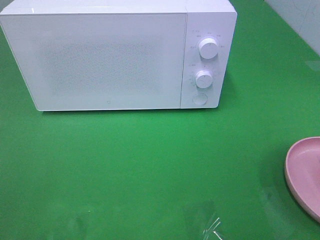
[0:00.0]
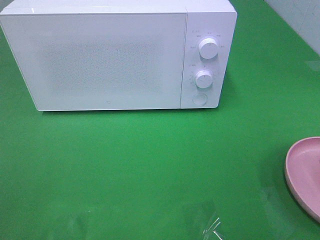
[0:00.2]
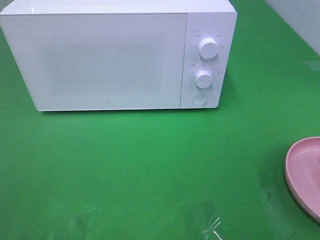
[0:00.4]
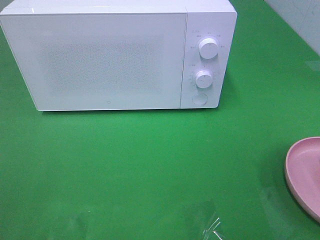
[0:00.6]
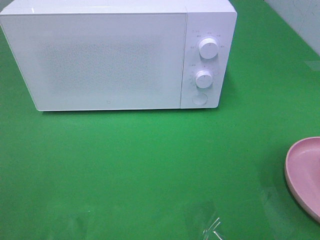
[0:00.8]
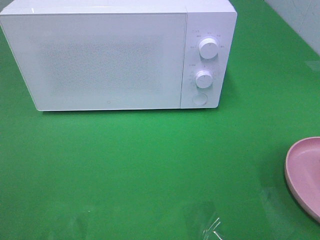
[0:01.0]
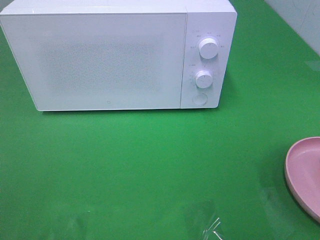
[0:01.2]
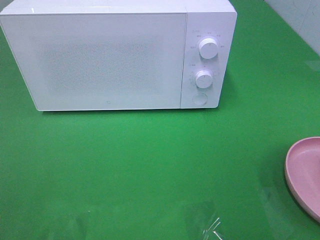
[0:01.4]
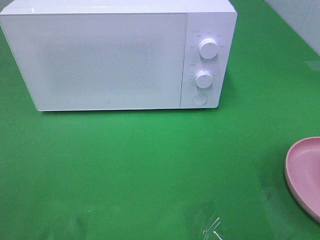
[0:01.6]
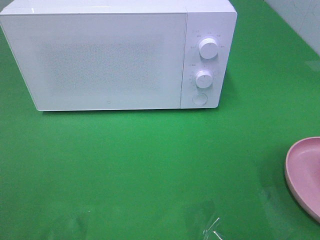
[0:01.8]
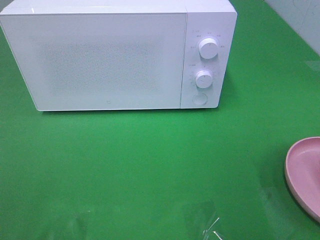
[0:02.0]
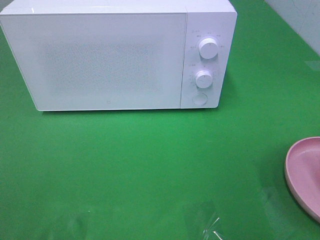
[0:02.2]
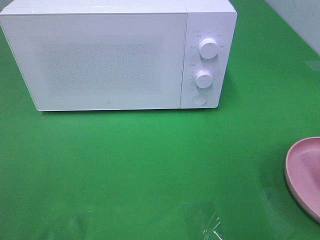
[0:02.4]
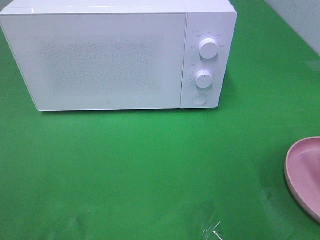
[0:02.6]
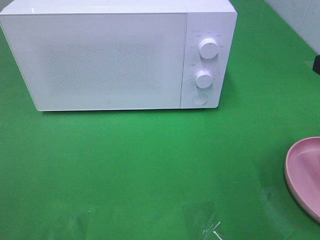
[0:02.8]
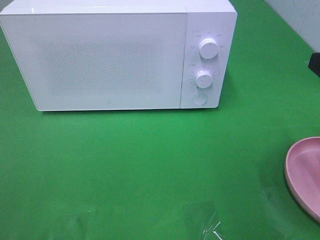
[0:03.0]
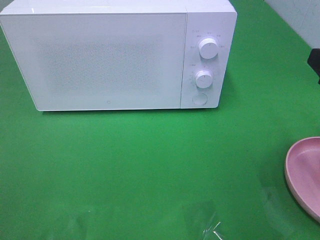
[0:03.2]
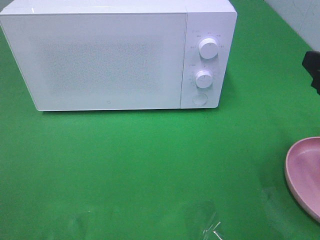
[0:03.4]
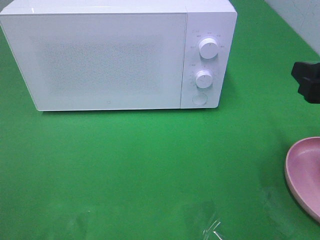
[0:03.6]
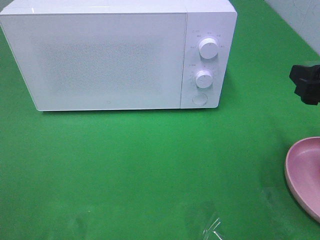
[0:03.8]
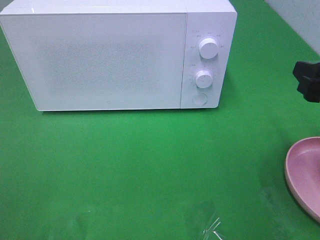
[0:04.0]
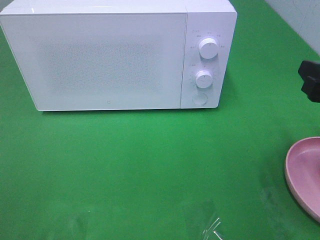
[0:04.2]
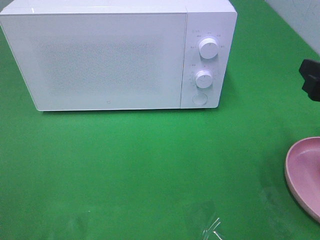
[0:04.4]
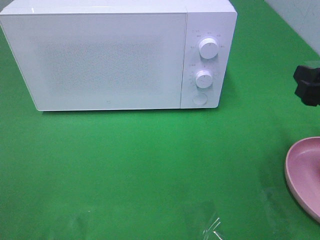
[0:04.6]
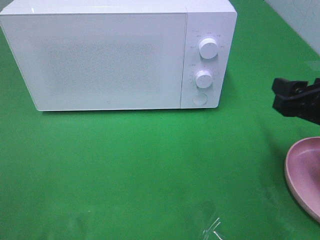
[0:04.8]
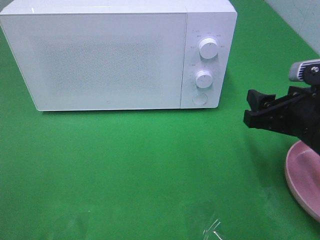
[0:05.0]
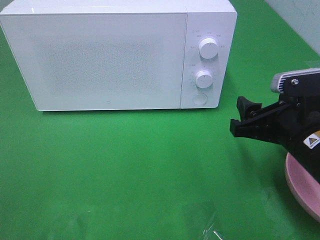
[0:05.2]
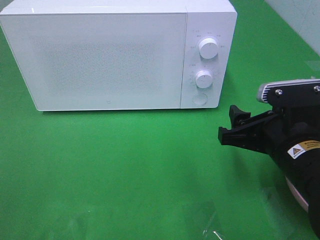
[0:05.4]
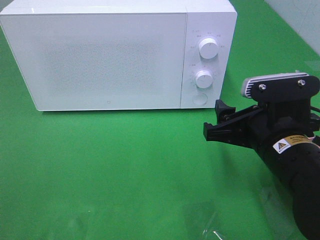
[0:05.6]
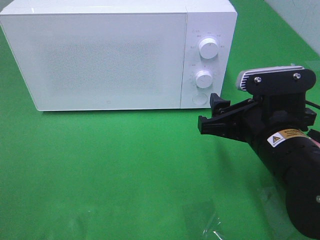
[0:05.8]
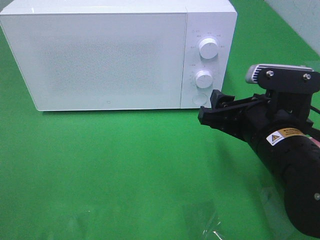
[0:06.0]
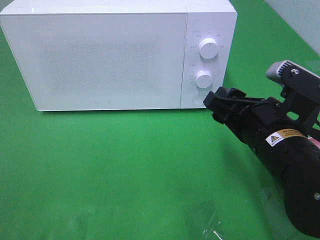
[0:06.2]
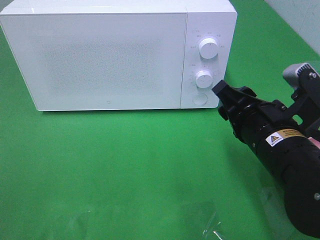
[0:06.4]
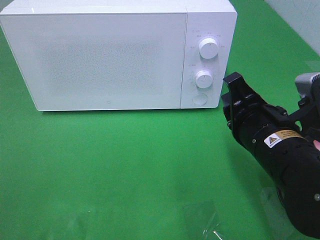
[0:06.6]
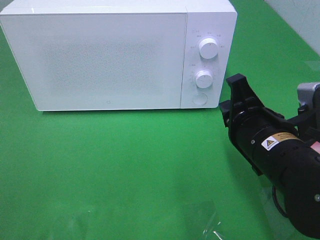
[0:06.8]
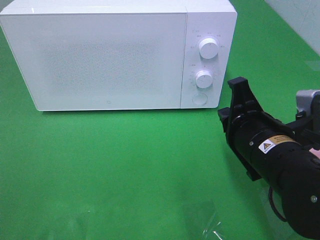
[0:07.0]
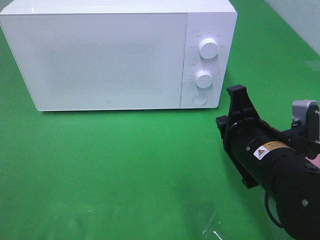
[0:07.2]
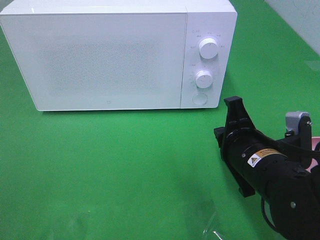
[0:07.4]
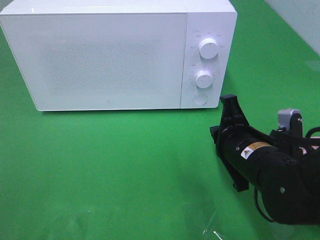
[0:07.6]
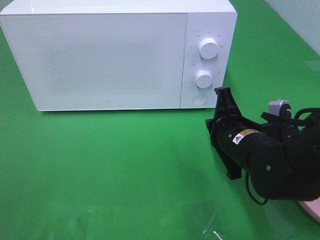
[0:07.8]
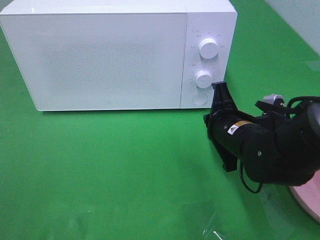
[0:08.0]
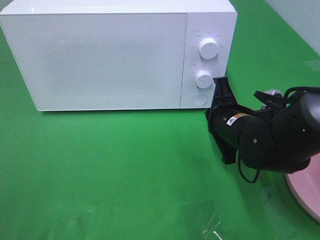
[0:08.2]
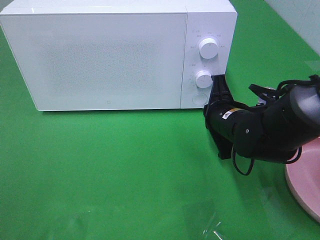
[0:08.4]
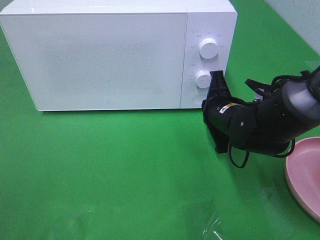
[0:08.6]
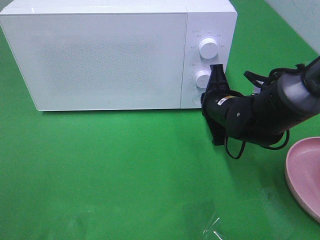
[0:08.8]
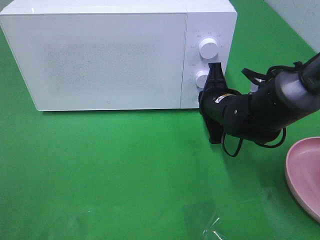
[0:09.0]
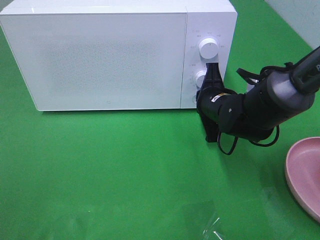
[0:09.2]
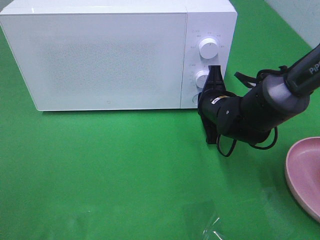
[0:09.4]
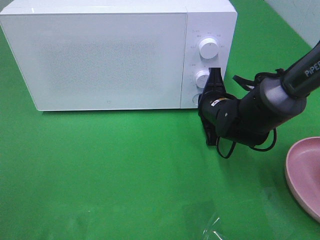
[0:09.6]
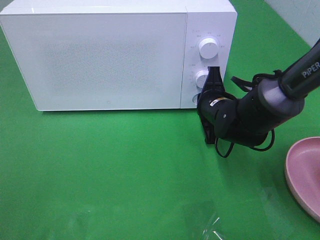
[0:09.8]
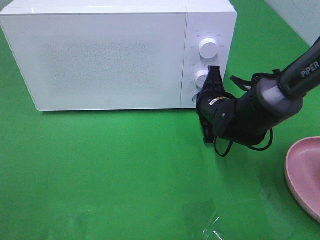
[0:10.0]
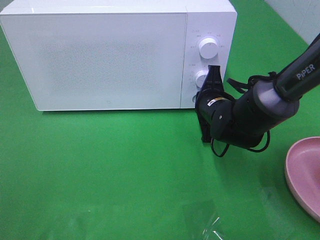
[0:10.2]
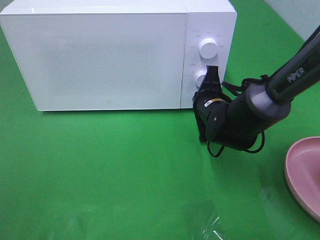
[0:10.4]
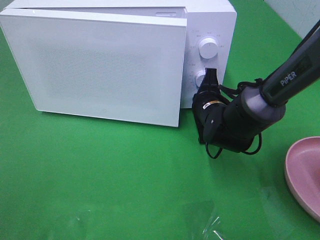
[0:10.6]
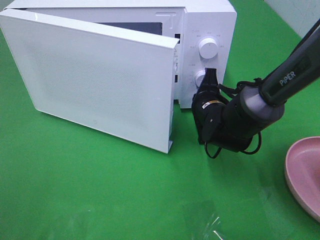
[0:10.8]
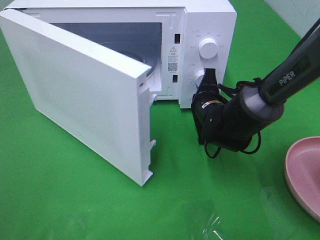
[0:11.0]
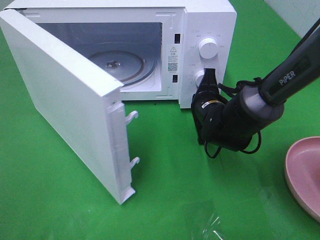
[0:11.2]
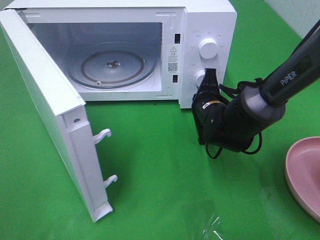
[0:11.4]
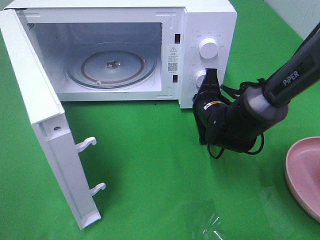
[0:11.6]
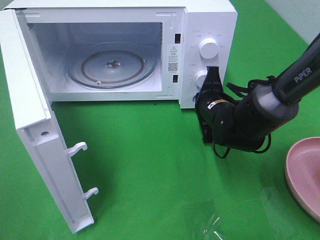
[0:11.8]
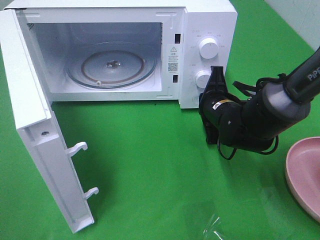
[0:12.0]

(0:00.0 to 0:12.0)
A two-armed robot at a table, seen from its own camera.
Task of the whole recording: Heat the burger.
0:01.6 - 0:03.0: The right gripper shifts about 10 cm forward and downward.
0:04.4 - 0:06.0: The right gripper travels to the left and downward by approximately 15 cm.
0:06.0 - 0:07.6: The right gripper is displaced downward by about 5 cm, and closes its fingers.
0:07.6 - 0:09.0: The right gripper goes approximately 10 cm forward.
0:09.0 - 0:10.4: There are only small adjustments of the grippers.

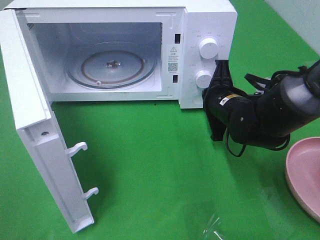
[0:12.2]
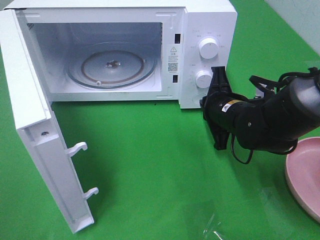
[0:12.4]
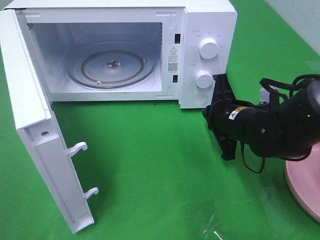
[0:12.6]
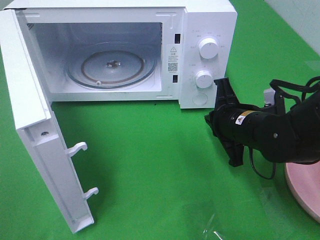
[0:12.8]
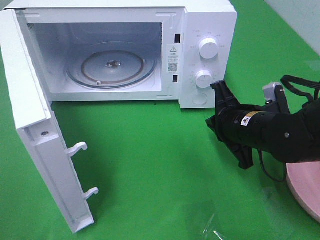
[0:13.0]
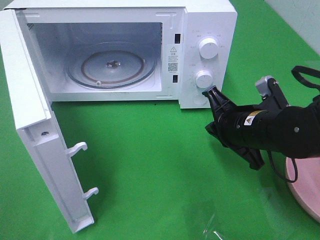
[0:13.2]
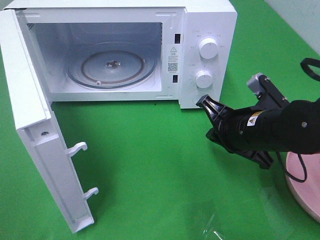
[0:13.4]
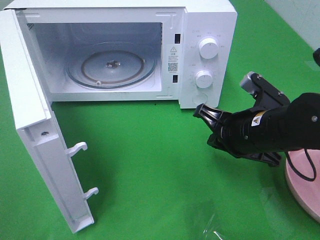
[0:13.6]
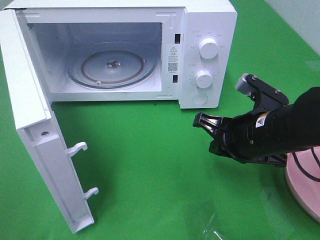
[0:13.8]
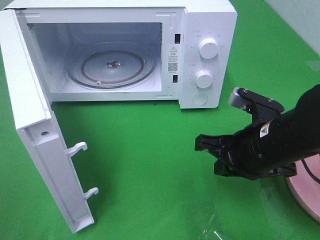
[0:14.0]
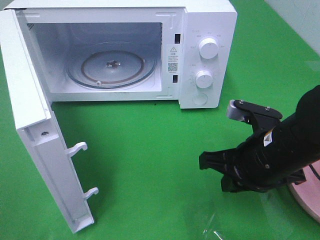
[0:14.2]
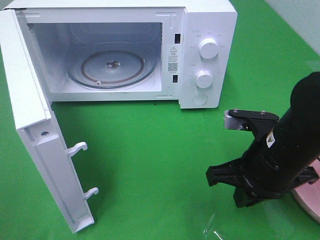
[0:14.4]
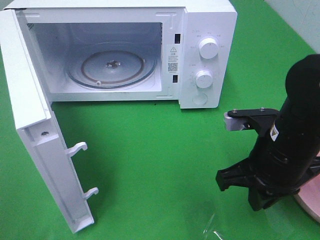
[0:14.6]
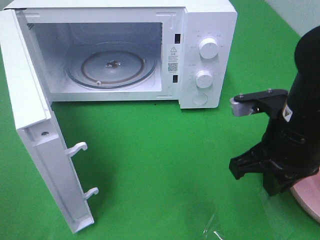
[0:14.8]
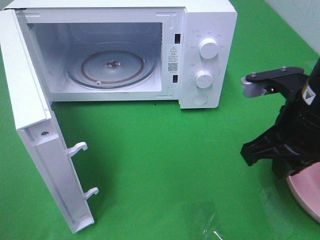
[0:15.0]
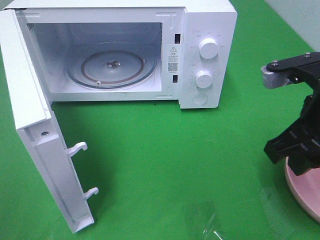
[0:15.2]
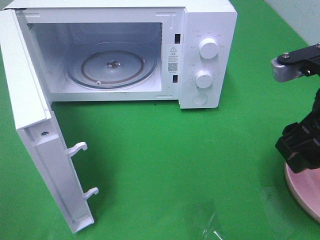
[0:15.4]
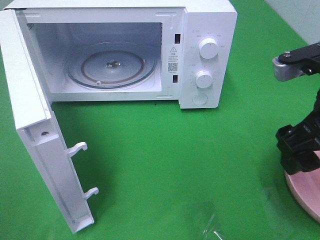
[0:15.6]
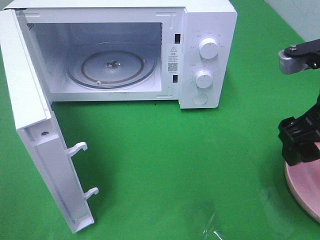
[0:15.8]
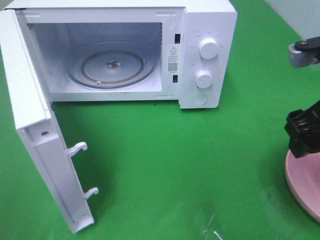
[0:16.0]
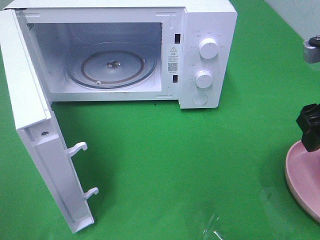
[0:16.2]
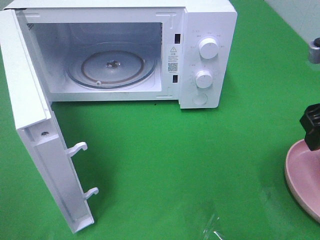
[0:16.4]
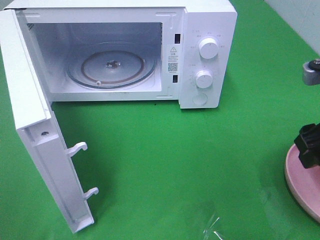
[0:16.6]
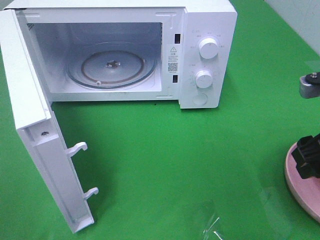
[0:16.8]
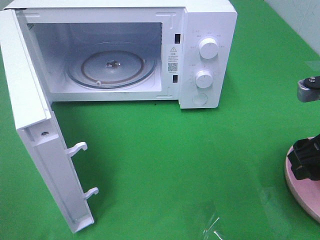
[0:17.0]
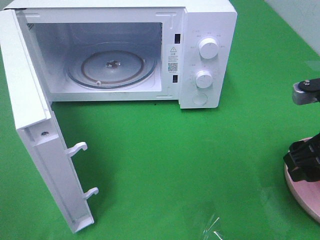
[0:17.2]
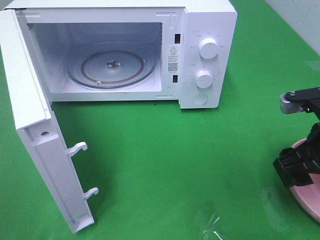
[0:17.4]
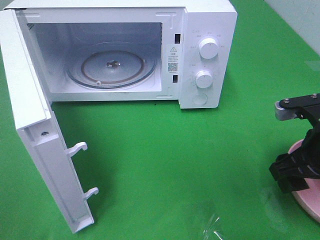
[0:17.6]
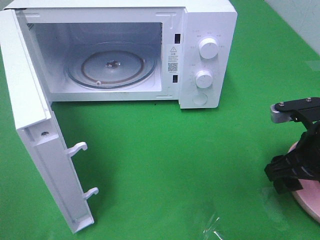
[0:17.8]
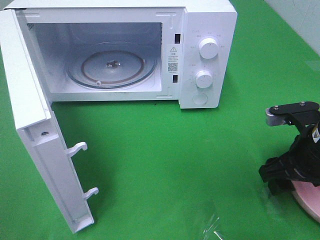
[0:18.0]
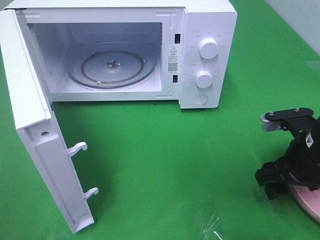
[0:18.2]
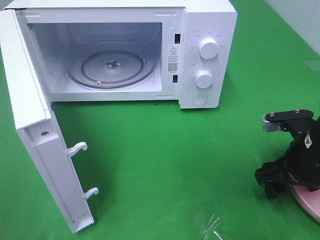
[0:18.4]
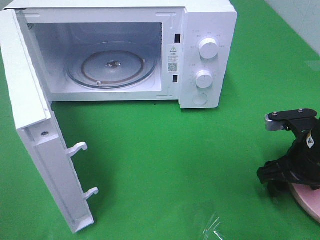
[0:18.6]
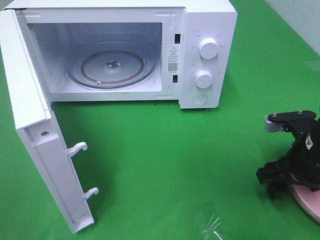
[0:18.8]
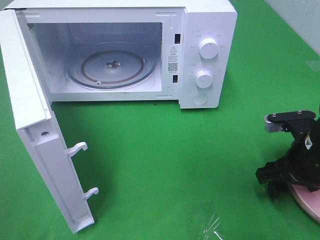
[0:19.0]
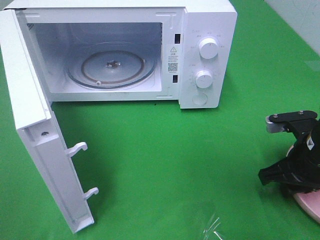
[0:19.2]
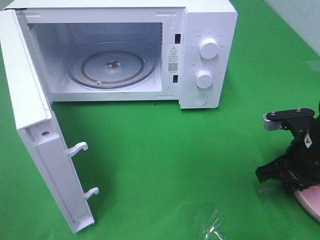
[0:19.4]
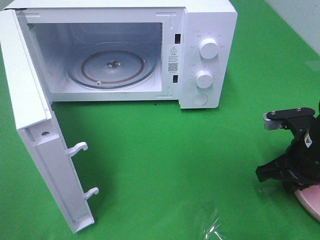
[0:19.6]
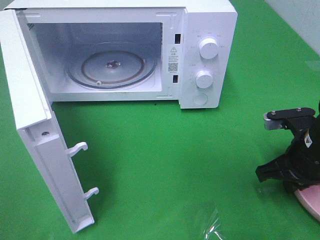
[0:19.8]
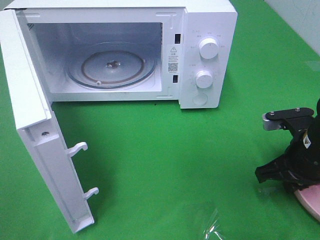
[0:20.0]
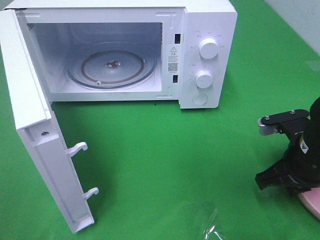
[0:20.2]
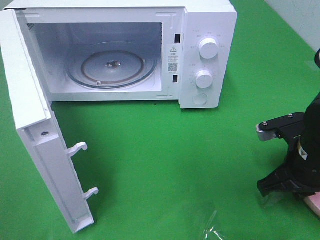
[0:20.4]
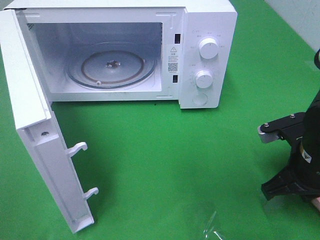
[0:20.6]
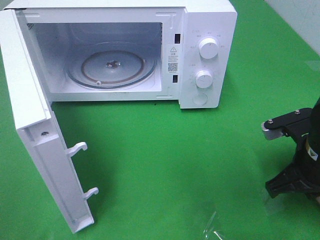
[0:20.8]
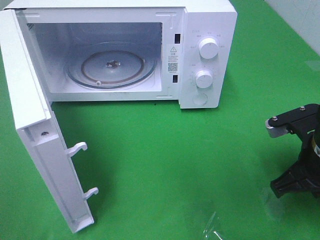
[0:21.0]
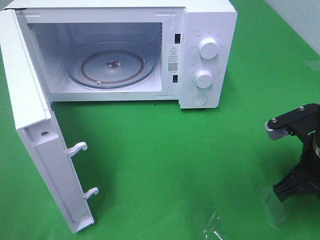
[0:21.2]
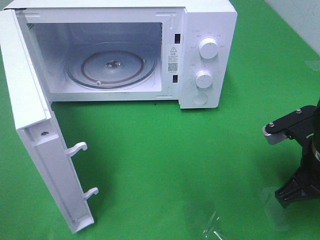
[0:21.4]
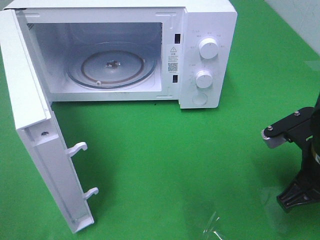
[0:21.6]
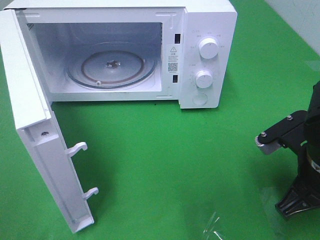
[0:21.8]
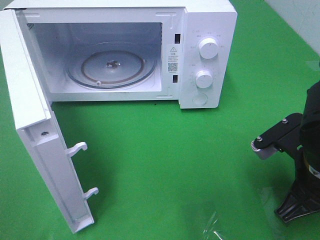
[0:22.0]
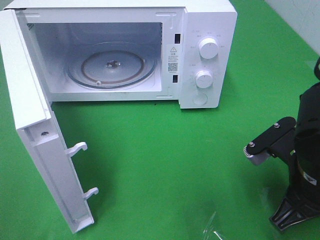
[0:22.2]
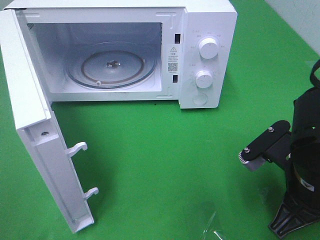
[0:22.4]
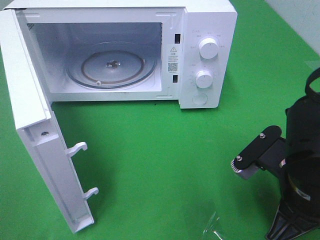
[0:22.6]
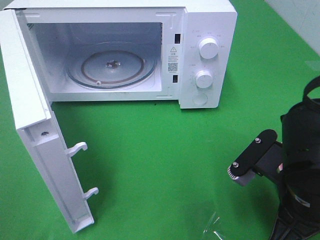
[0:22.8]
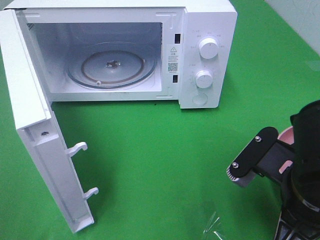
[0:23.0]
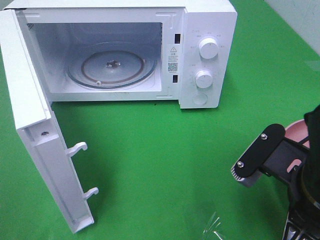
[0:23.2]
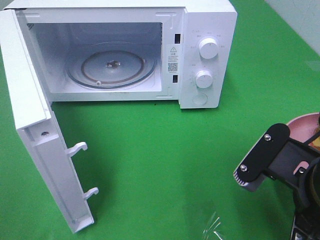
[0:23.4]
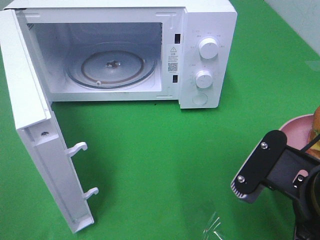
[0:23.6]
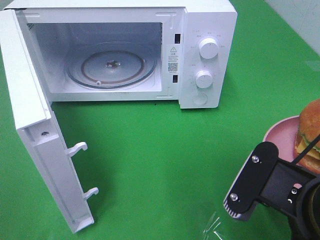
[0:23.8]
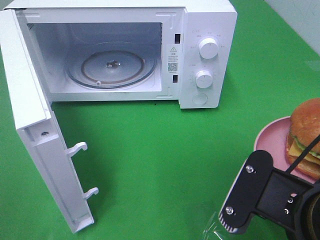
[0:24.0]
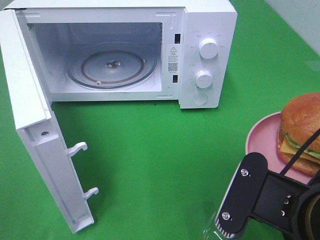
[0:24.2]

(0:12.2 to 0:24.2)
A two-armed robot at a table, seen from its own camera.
Task of the whole recording: Heat the burger.
Step, 0:12.6 - 0:19.8: Right hand: grab the plate with the hamburger.
0:12.2 - 0:13.8: The right gripper is displaced backward by approximately 10 cm.
0:13.8 - 0:15.2: The right gripper travels upward by some 10 cm, and opens its fingers.
0:15.2 - 0:16.6: The right gripper is displaced to the right by about 5 cm, and opens its fingers.
0:16.6 - 0:18.2: The right gripper is displaced downward by about 10 cm.
0:18.2 - 0:19.8: The right gripper closes its fingers.
0:19.8 - 0:21.2: The right gripper shifts by some 5 cm.
0:21.2 - 0:22.6: The right gripper moves to the left, approximately 5 cm.
0:22.6 - 0:24.2: The right gripper moves backward, approximately 5 cm.
